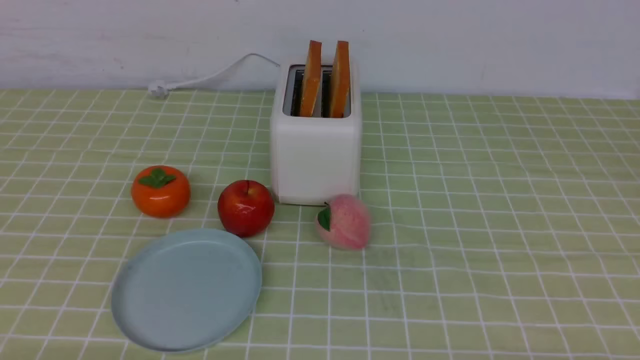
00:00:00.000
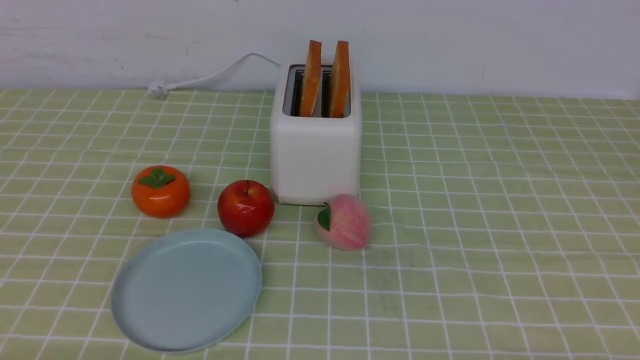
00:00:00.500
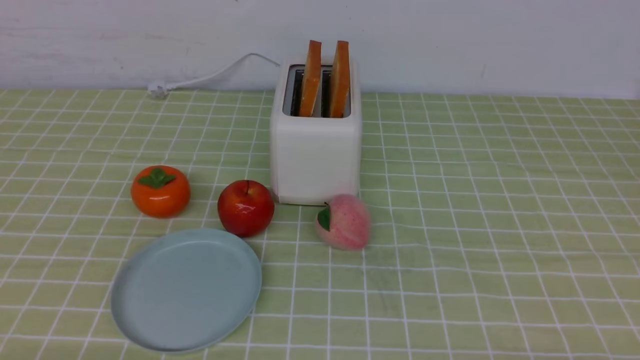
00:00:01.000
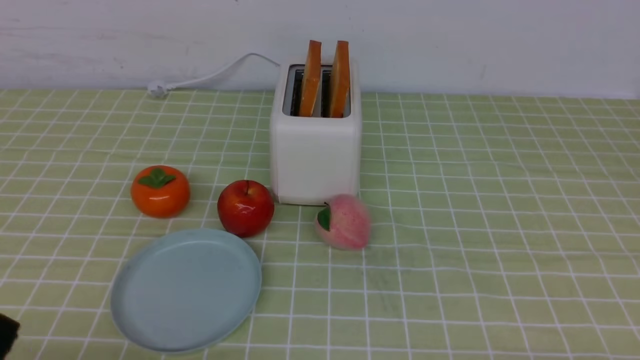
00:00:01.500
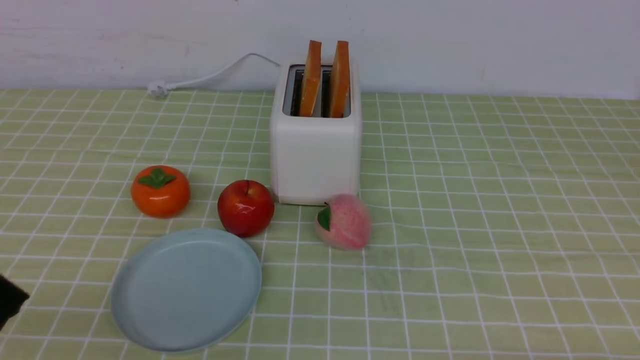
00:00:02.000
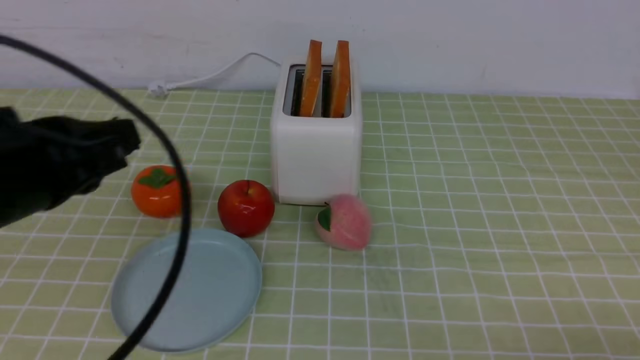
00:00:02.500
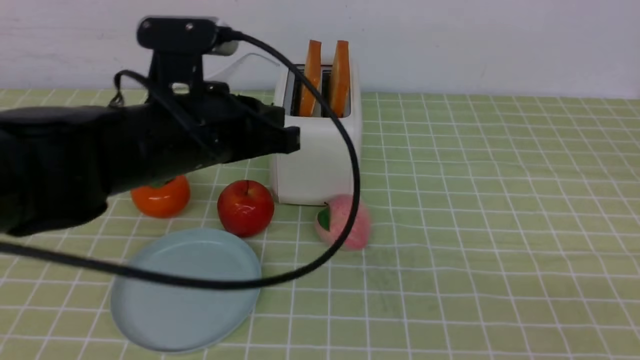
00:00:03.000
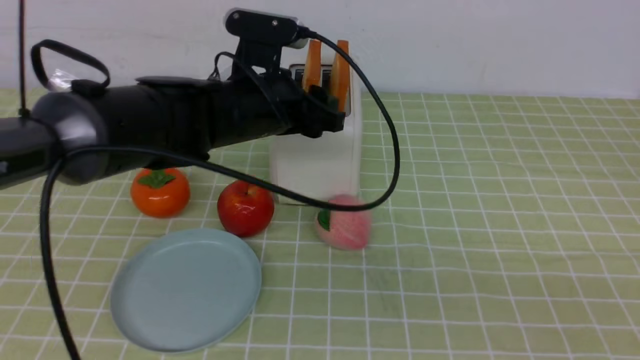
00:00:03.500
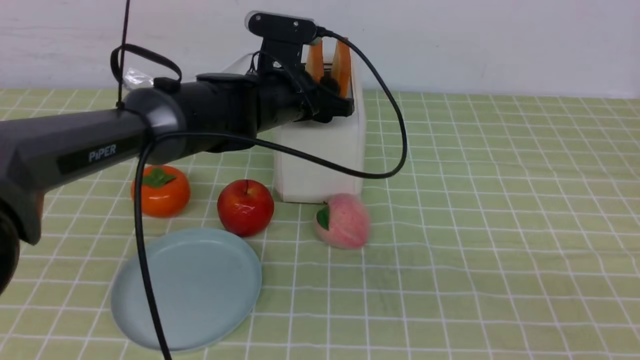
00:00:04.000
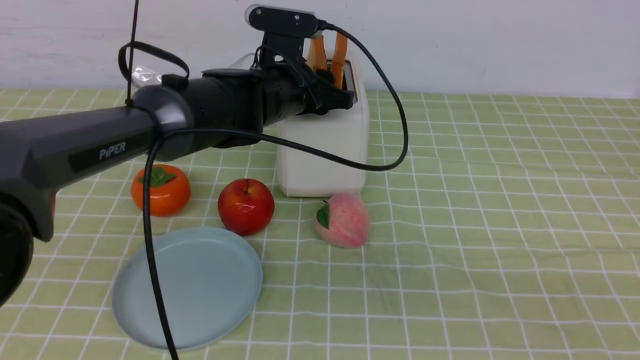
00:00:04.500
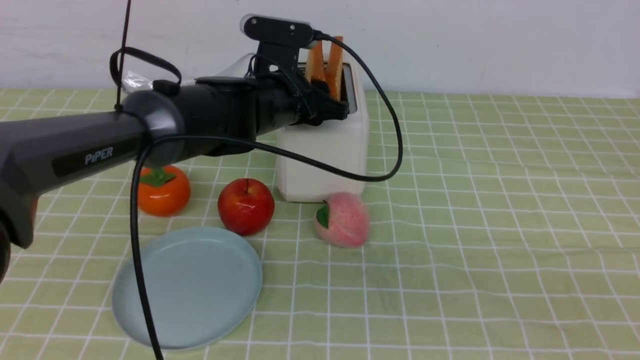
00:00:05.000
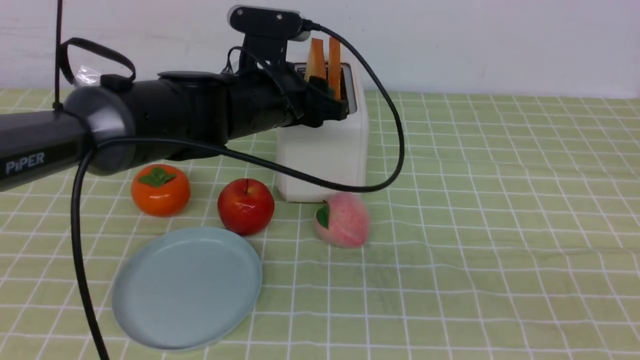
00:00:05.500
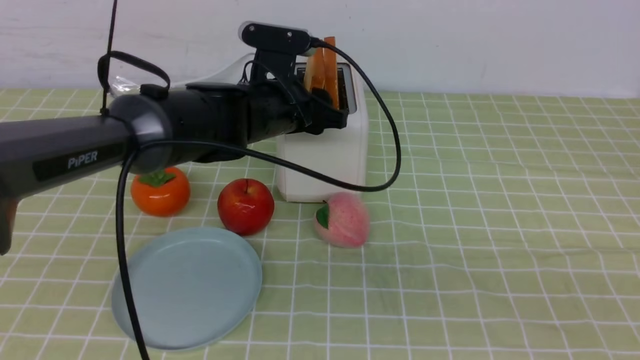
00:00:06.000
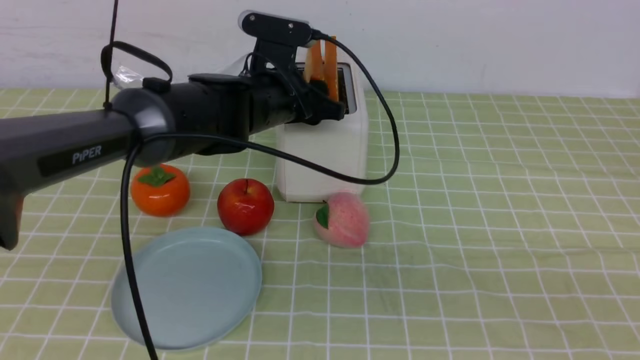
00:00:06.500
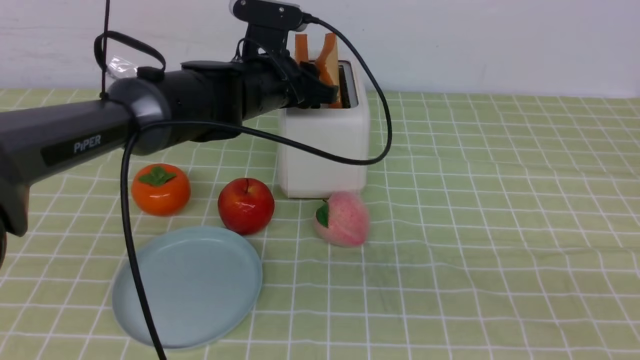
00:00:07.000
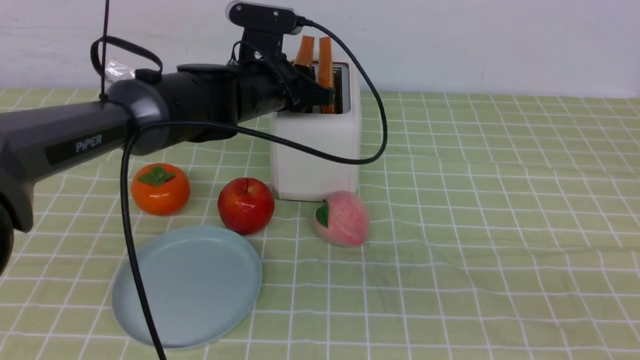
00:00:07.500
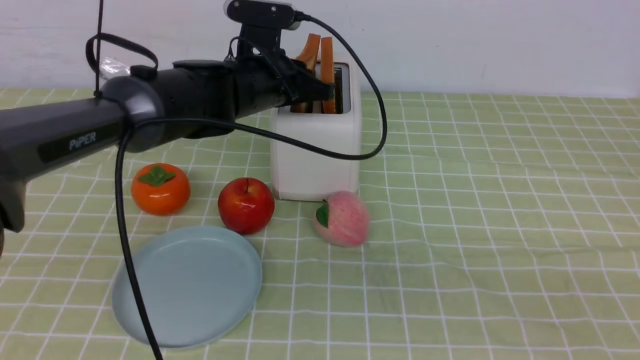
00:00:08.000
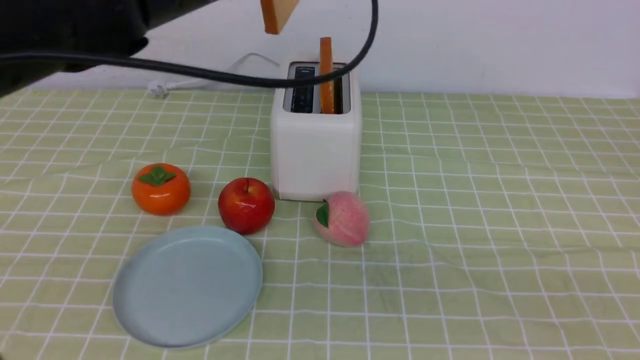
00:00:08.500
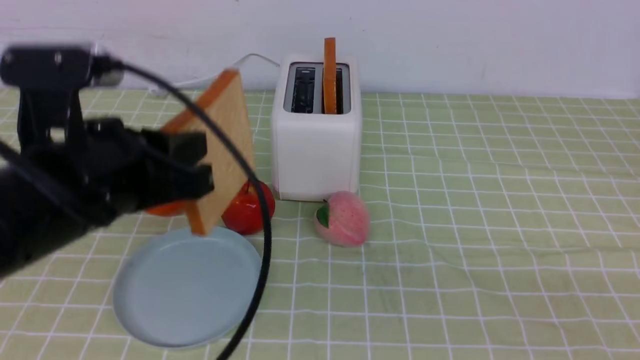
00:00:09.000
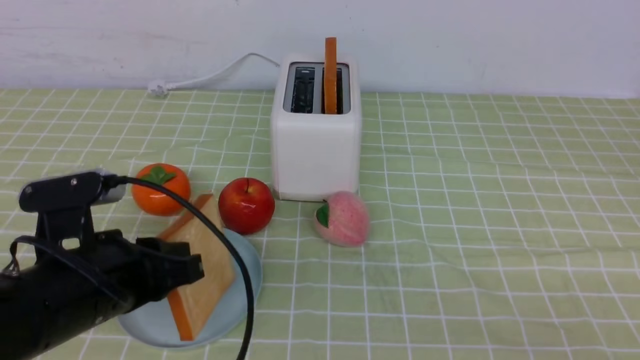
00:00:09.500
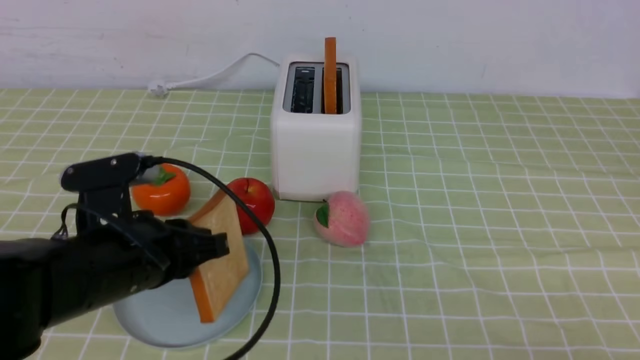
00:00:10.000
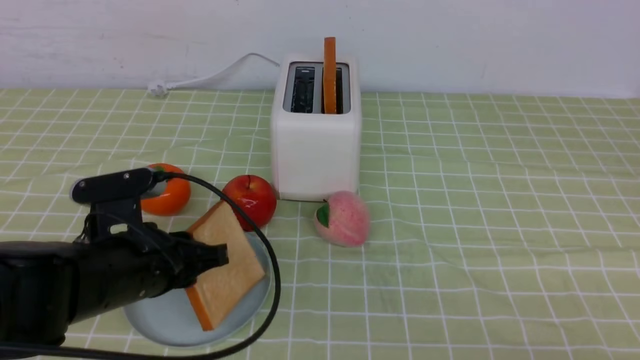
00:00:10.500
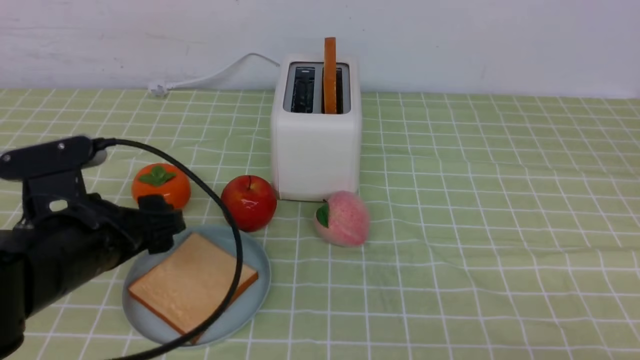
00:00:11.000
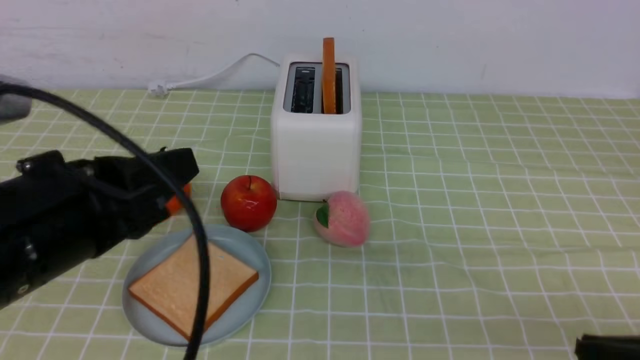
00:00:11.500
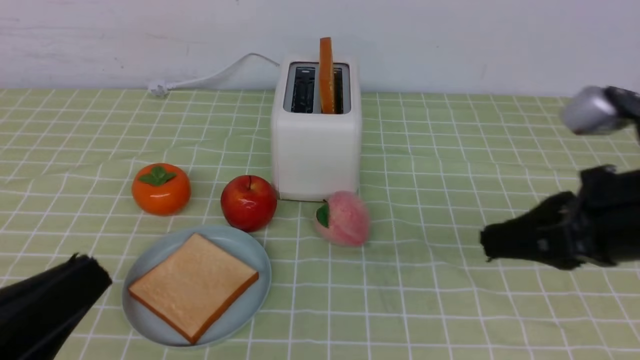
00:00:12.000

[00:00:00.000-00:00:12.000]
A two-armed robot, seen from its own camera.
Task of the whole recording: take toasted bread from bread machine on green coffee tablecloth place on plate.
Step, 00:00:00.000 to 00:00:08.000: use the left arm to take out a slice of bread.
Step, 00:00:08.500 to 00:00:11.000: use the left arm to put a slice of bread into the empty plate.
00:00:02.000 to 00:00:04.000: The right gripper goes approximately 15 cm upward, and closes up. Meanwhile the left gripper travels forward and to the right by some 40 cm, and opens its fingers.
00:00:04.000 to 00:00:06.000: There are only small adjustments of the grippers.
00:00:06.000 to 00:00:08.000: The left gripper closes up.
00:00:08.000 to 00:00:10.000: The left gripper heads backward and to the left, covering some 25 cm.
00:00:10.000 to 00:00:12.000: The left gripper shifts about 15 cm backward and upward, and opens, then closes again. The right gripper moves forward, about 15 cm.

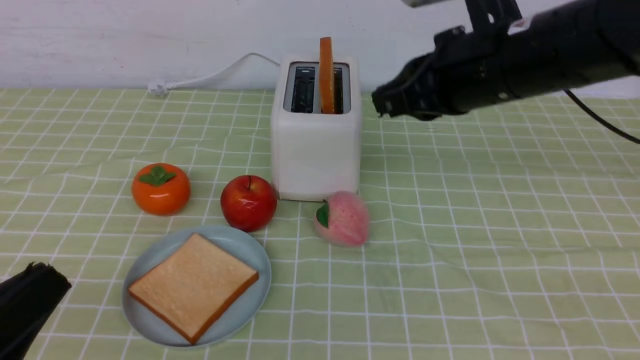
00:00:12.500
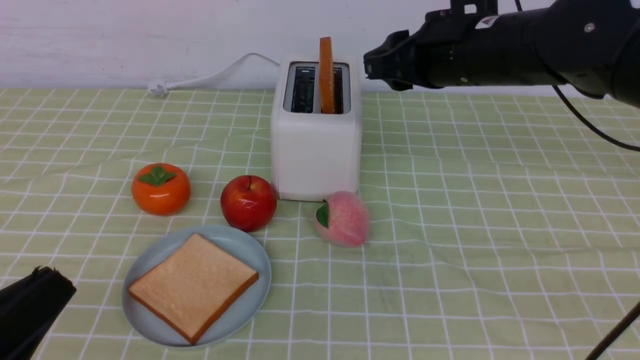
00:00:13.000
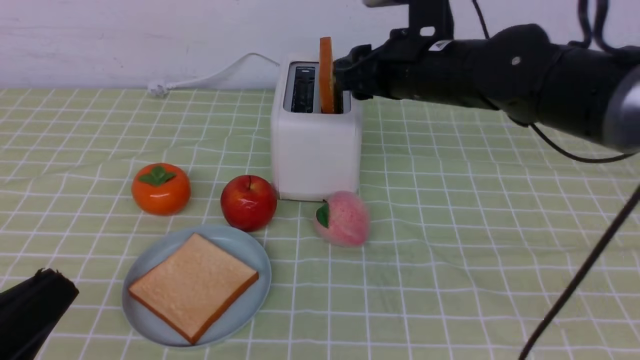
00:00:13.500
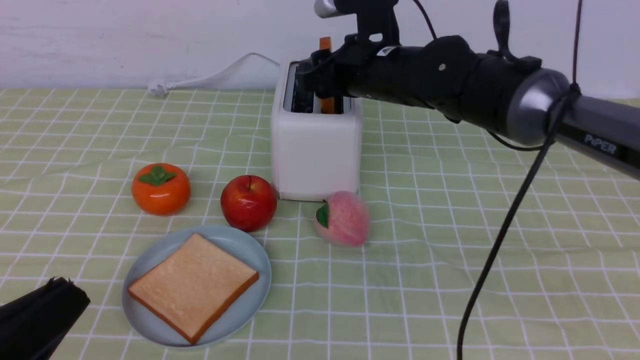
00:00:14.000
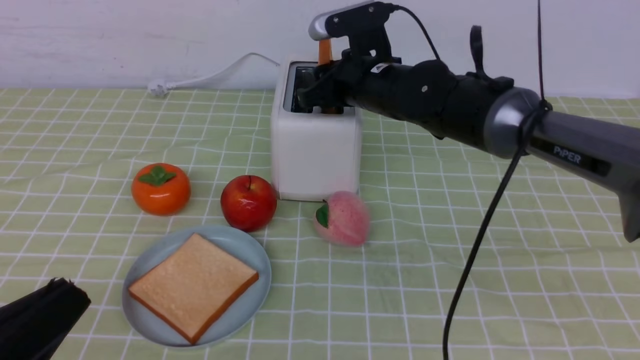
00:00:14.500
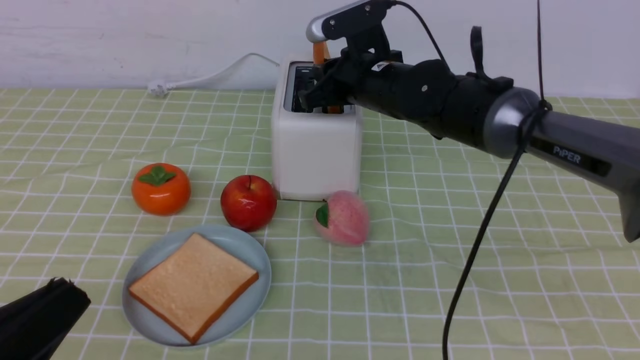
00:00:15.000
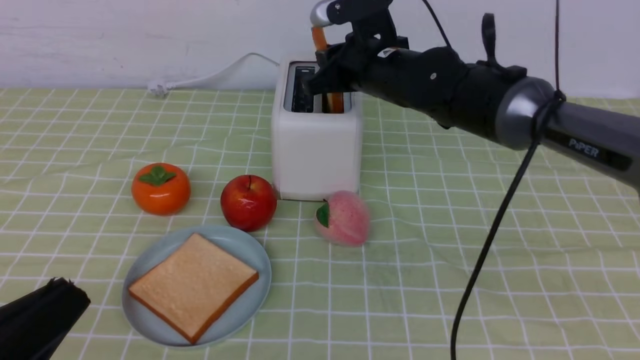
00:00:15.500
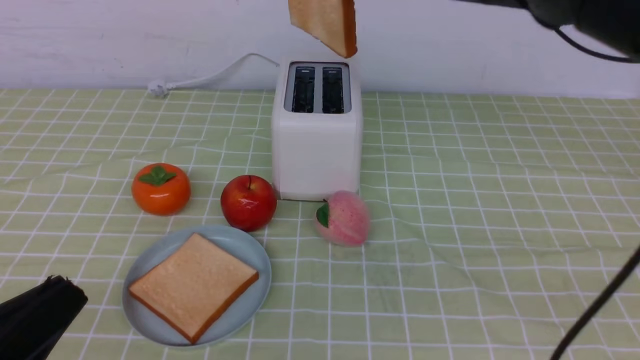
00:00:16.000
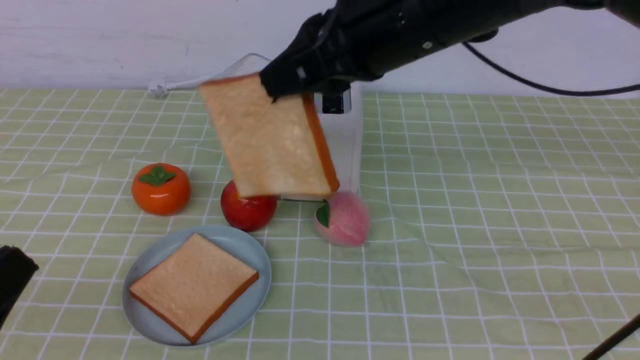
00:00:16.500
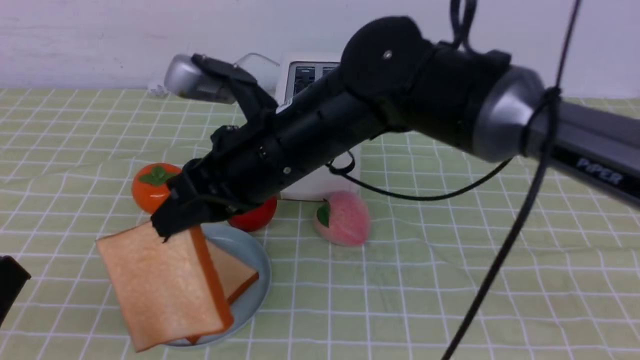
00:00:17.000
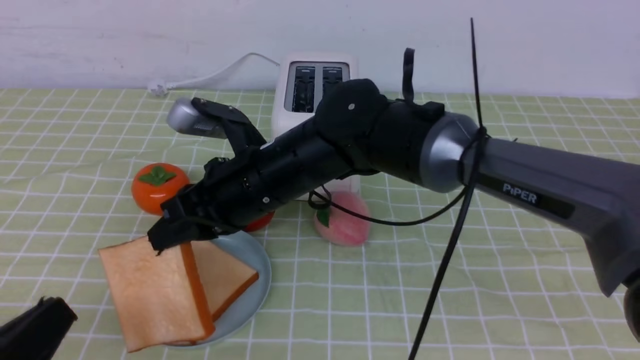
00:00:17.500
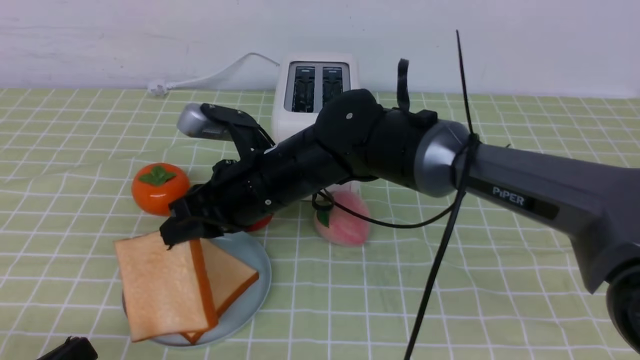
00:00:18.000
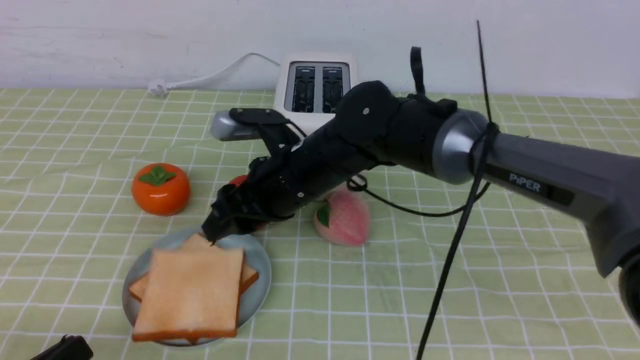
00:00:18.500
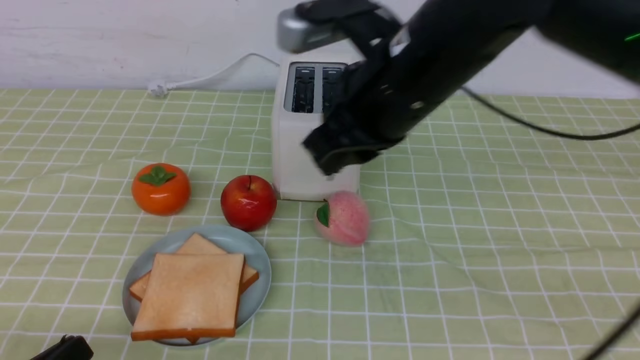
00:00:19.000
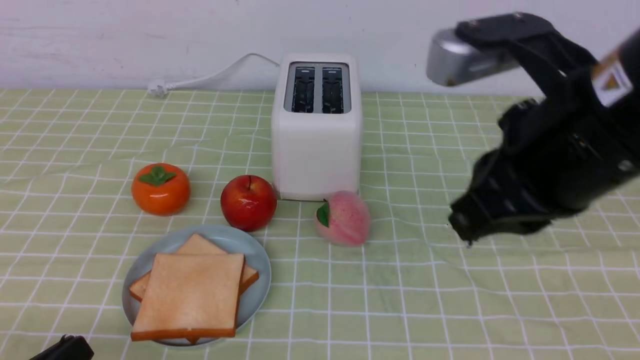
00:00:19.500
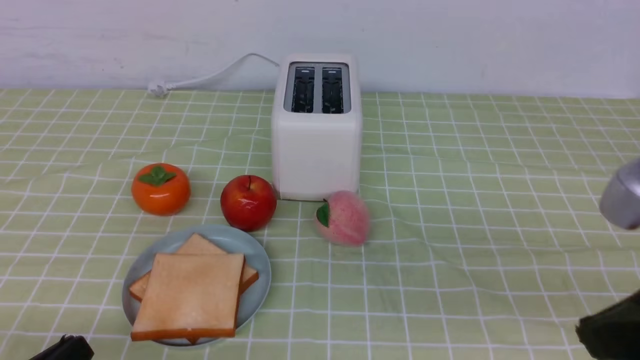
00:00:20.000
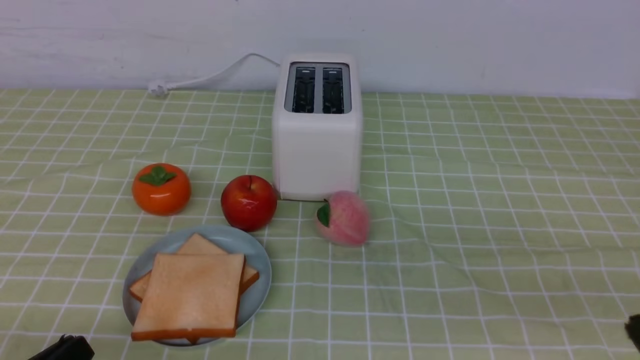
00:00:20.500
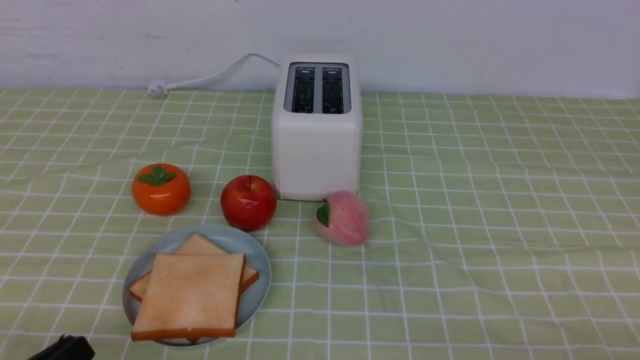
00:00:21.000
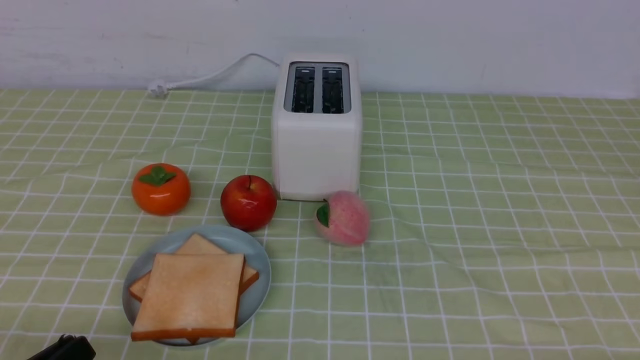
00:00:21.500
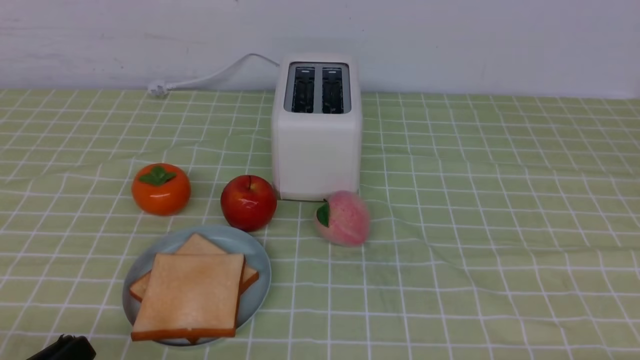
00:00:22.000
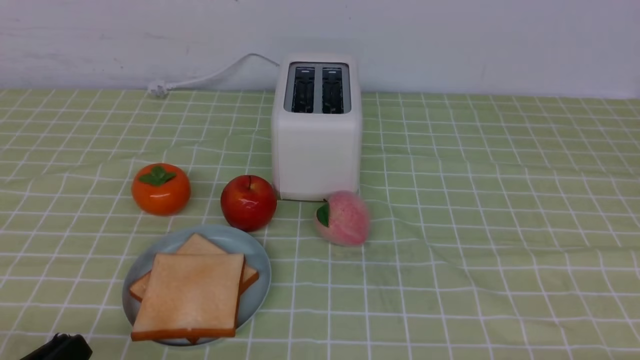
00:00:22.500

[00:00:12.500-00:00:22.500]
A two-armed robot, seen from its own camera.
Task of the whole recording: take toasted bread from bread machine on green coffee tablecloth place on plate.
Step, 00:00:12.500 to 00:00:15.500: use the right arm to take out a slice of bread.
Step, 00:00:16.000 to 00:00:18.500: use the right arm to put a slice of bread into the plate.
00:00:12.500 to 00:00:14.500: The right gripper heads forward, downward and to the left, covering some 20 cm, and opens its fingers.
00:00:14.500 to 00:00:16.500: The right gripper moves backward and upward, roughly 20 cm, and closes up.
00:00:16.500 to 00:00:18.500: The right gripper is displaced downward and to the left by some 20 cm, and opens its fingers, while the left gripper goes some 10 cm downward.
00:00:18.500 to 00:00:20.500: The right gripper goes some 40 cm to the right, backward and upward, and closes its fingers.
